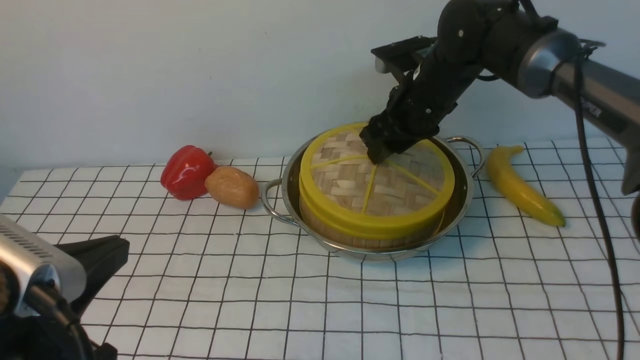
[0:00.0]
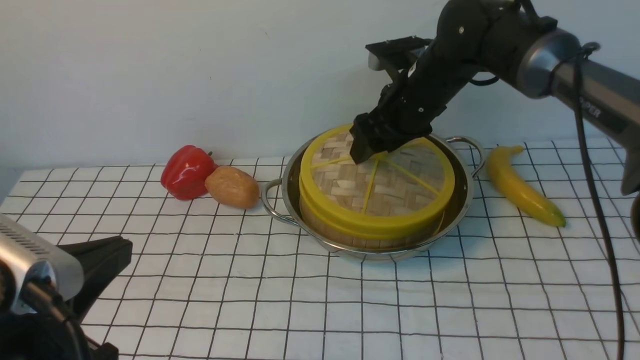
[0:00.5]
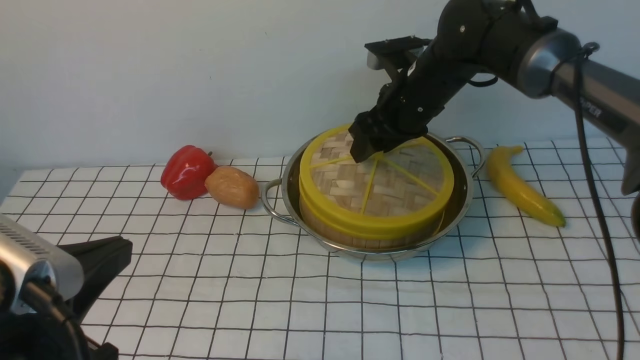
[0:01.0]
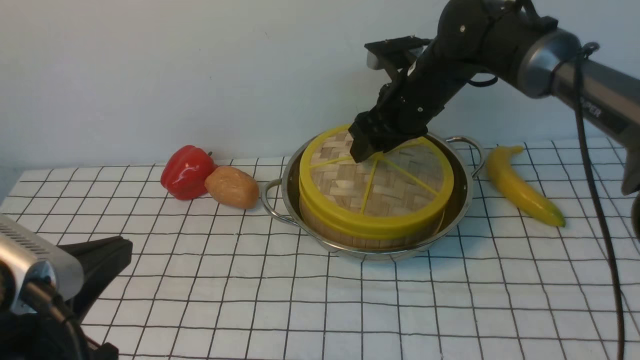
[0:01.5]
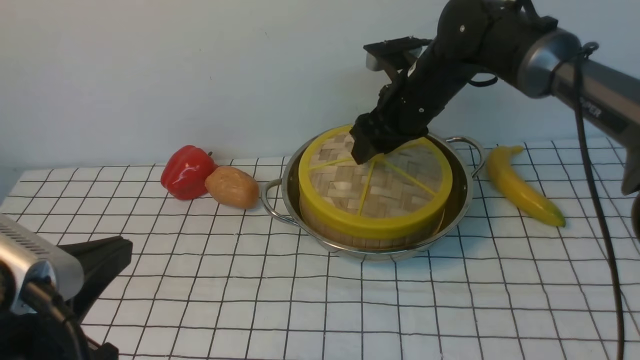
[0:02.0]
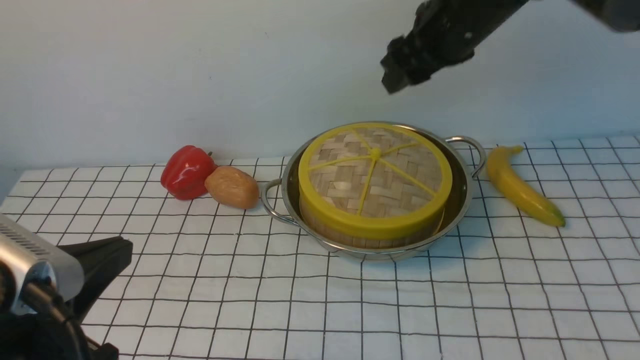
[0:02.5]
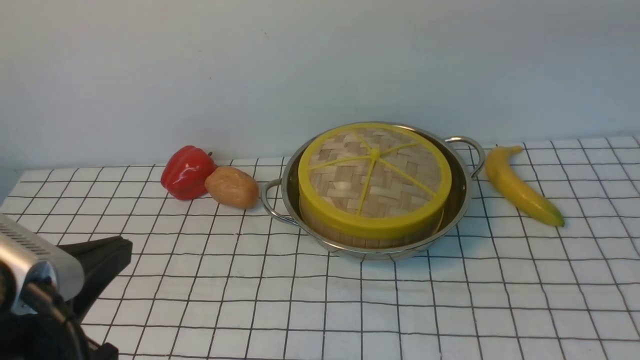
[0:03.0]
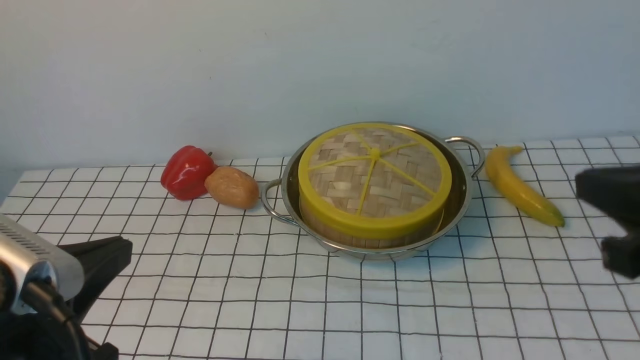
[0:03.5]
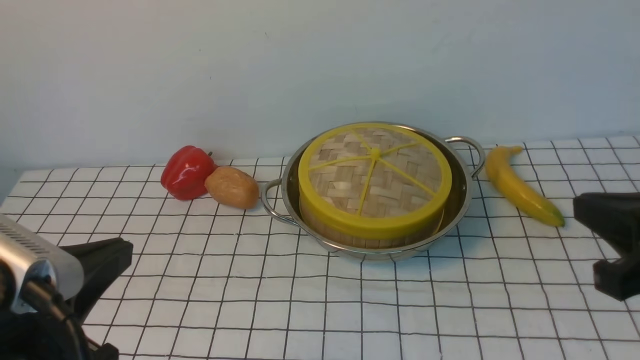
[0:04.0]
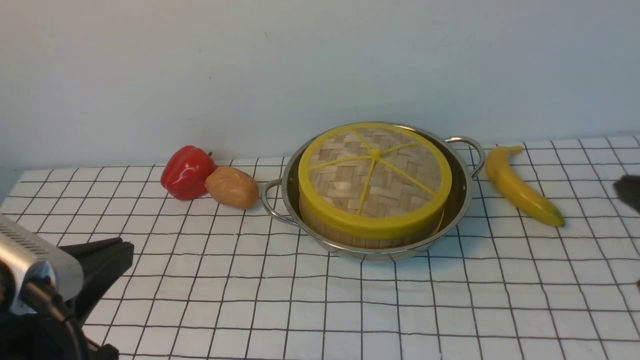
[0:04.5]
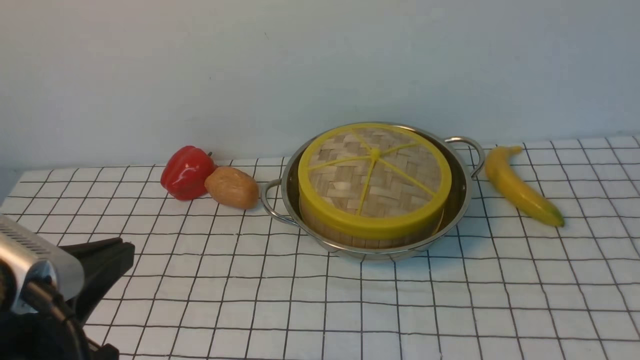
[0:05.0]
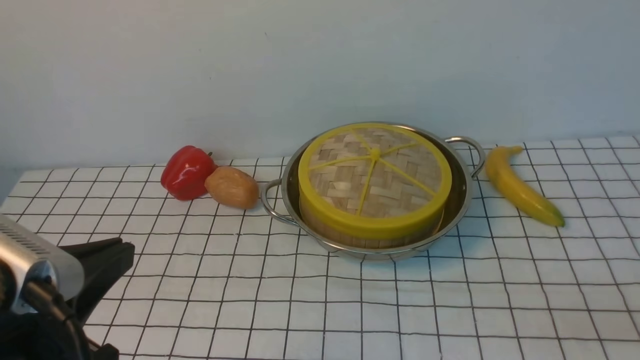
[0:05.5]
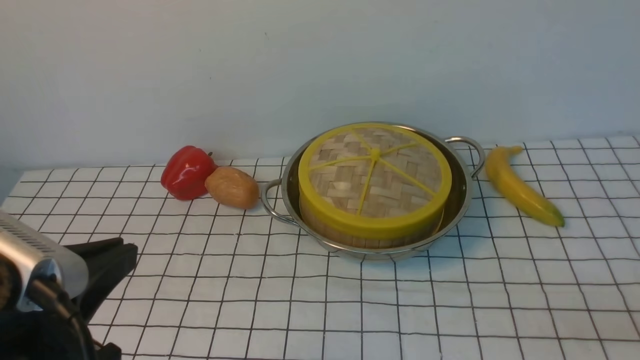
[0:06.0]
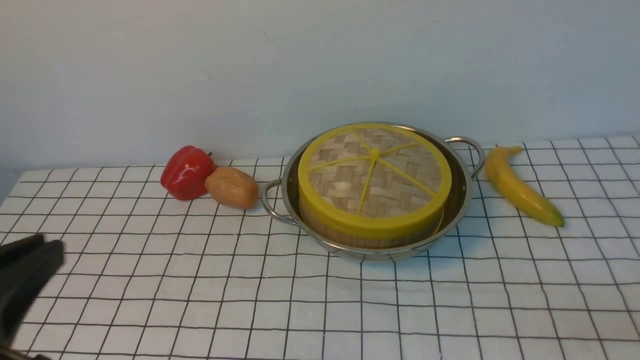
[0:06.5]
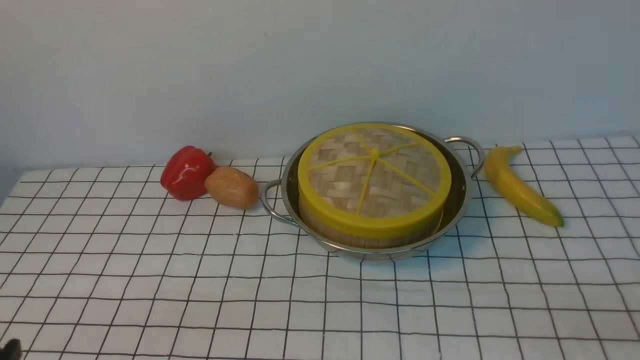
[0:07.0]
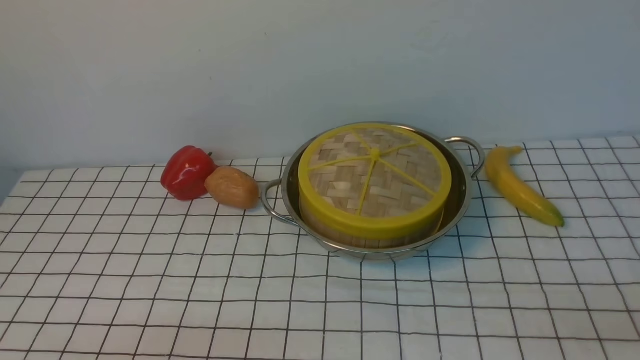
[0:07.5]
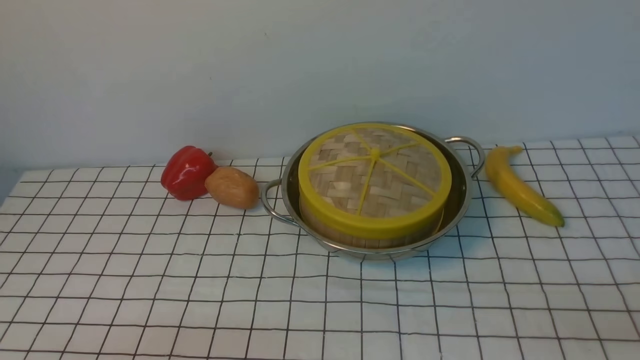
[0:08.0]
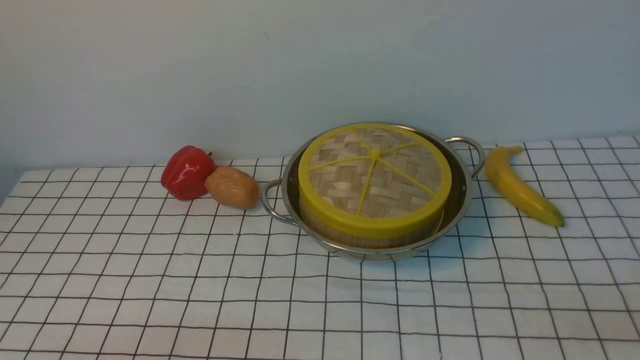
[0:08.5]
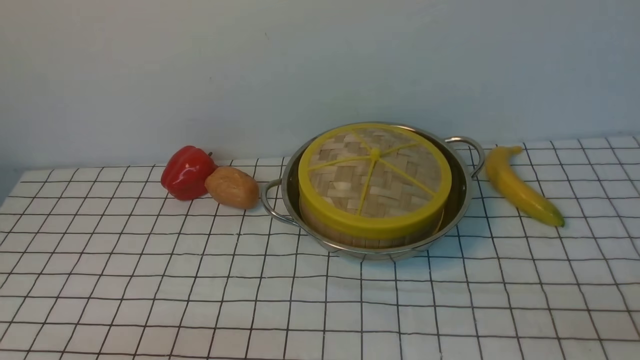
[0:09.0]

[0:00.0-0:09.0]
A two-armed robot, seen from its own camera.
Task of the whole recording: place the steamer in the pot on the white tablecloth, and put the lid on the steamer.
Step, 0:00.0 to 0:02.0: use the right arm to place the steamer lid on the steamer.
0:00.0 to 0:02.0: The grippers make only small movements.
0:02.0 to 0:04.5: The right gripper heads backward and to the right, covering some 35 cm, and closes.
0:04.5 to 0:07.0: The right gripper is displaced downward, backward and to the right by some 15 cm, and opens its fingers, while the left gripper goes some 10 cm downward and backward.
